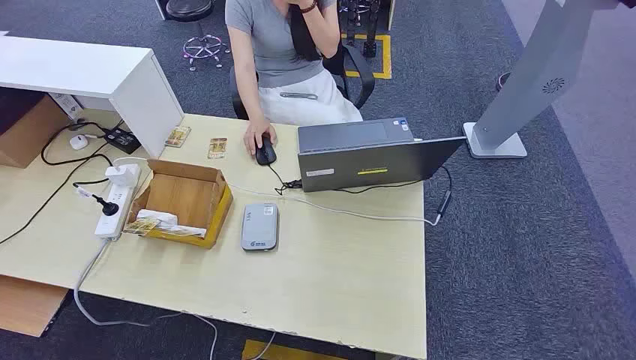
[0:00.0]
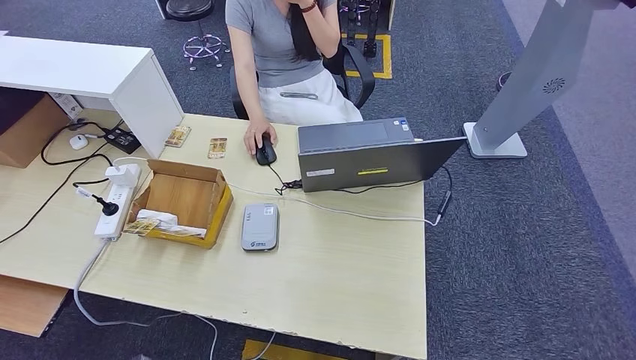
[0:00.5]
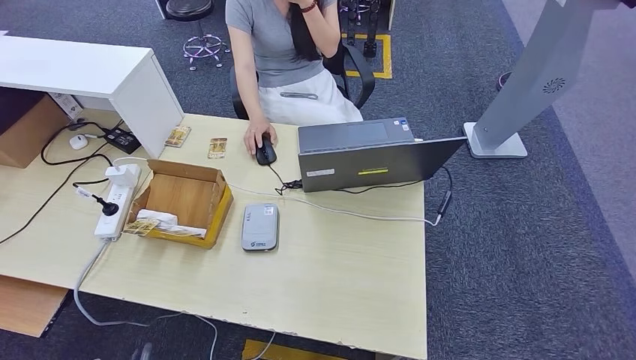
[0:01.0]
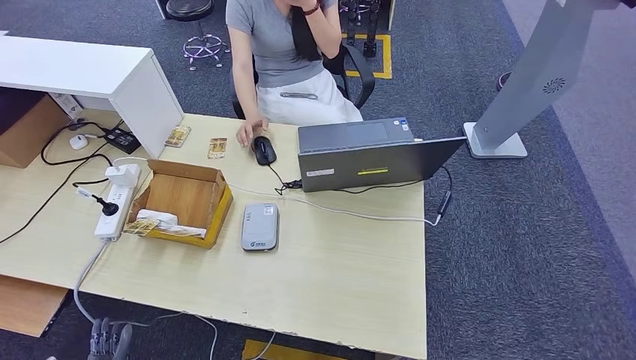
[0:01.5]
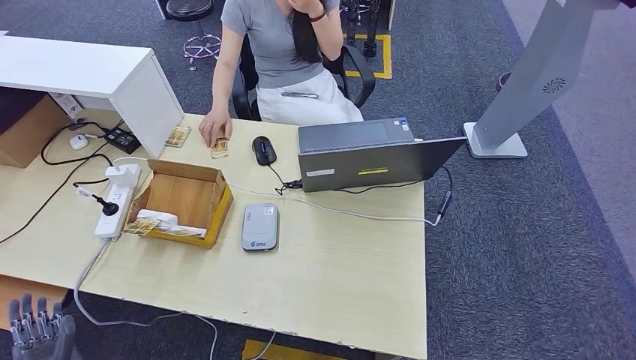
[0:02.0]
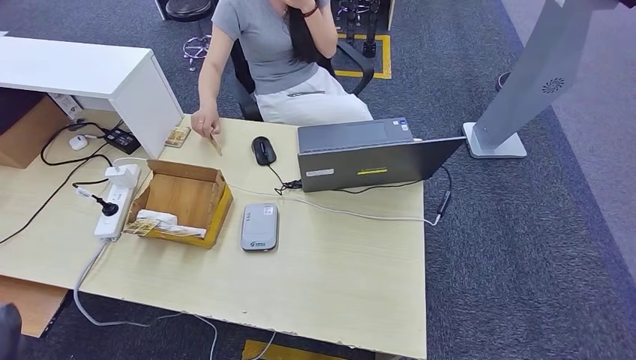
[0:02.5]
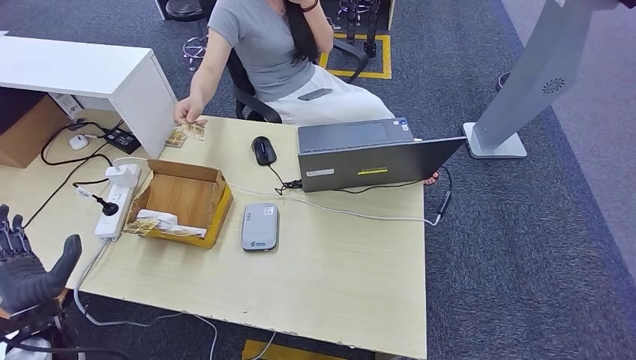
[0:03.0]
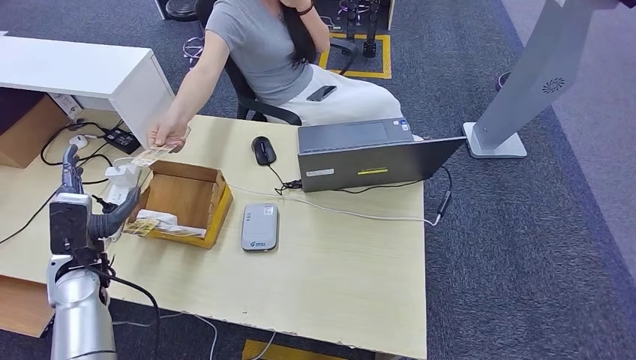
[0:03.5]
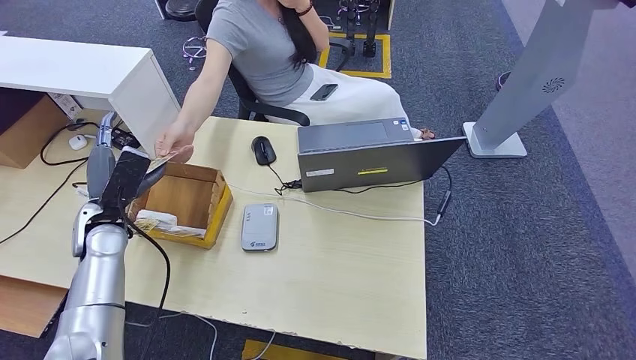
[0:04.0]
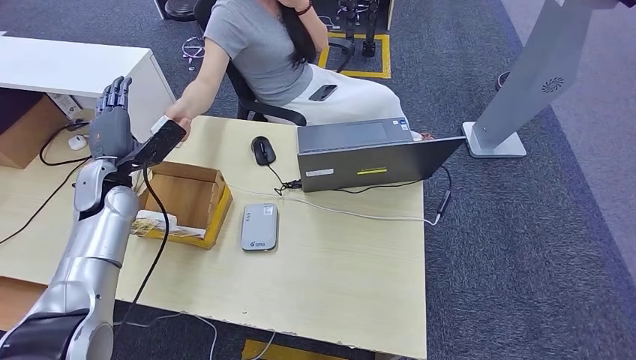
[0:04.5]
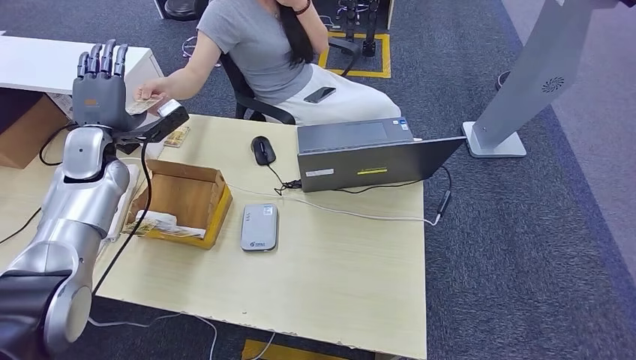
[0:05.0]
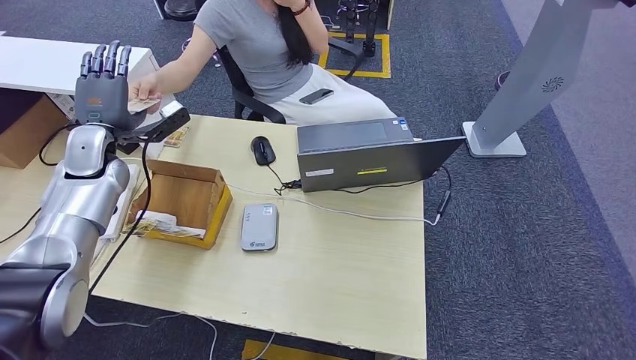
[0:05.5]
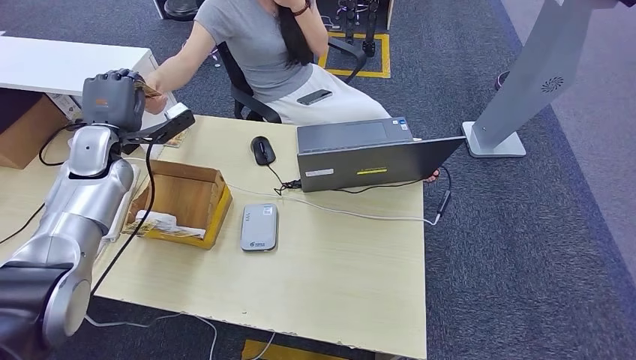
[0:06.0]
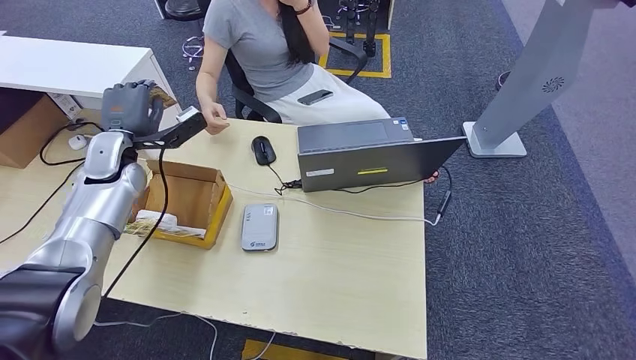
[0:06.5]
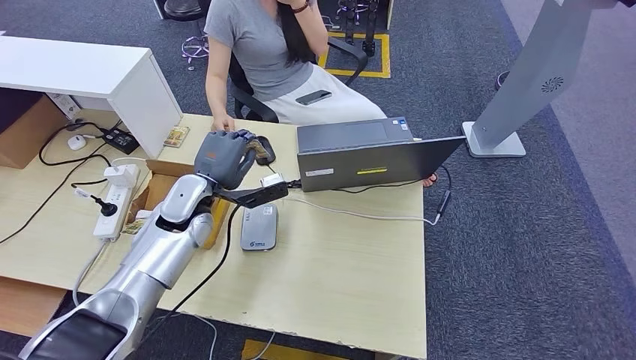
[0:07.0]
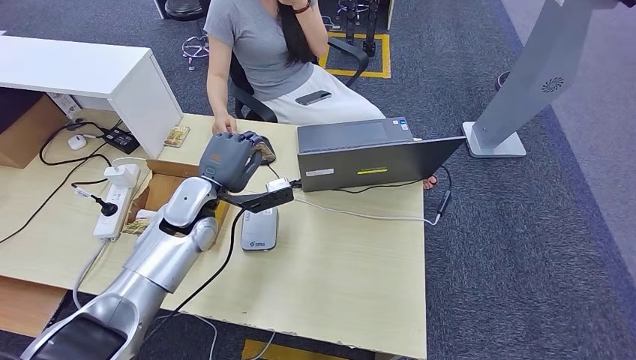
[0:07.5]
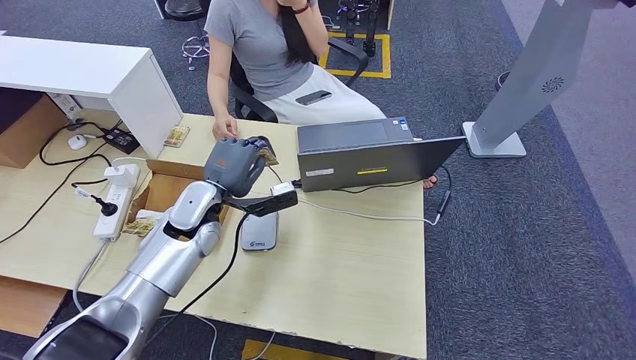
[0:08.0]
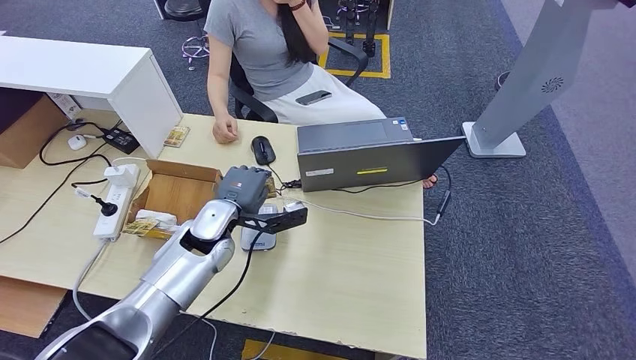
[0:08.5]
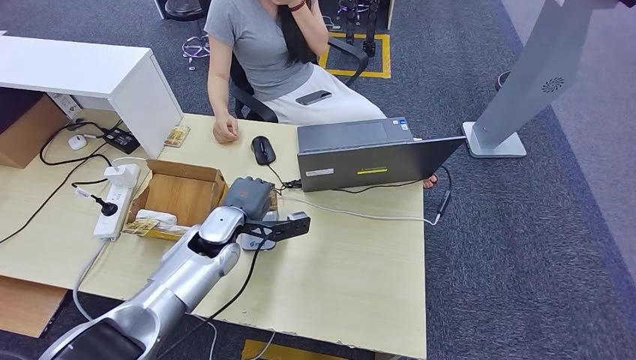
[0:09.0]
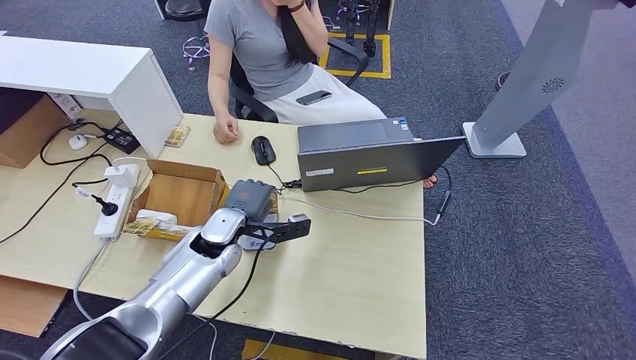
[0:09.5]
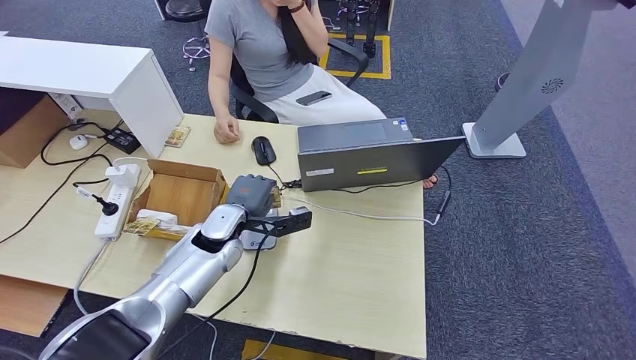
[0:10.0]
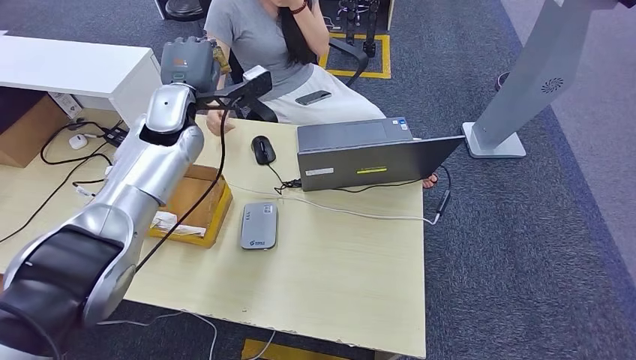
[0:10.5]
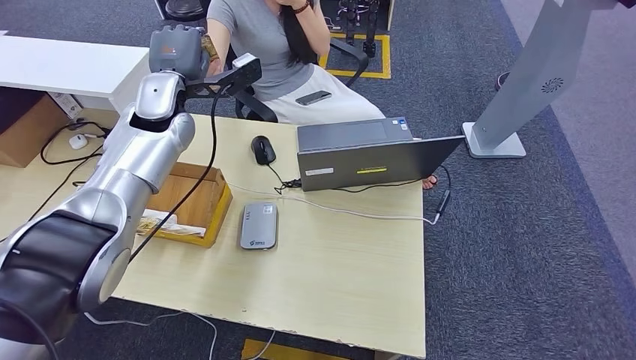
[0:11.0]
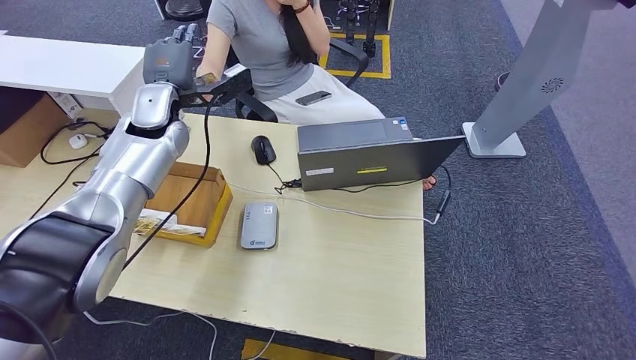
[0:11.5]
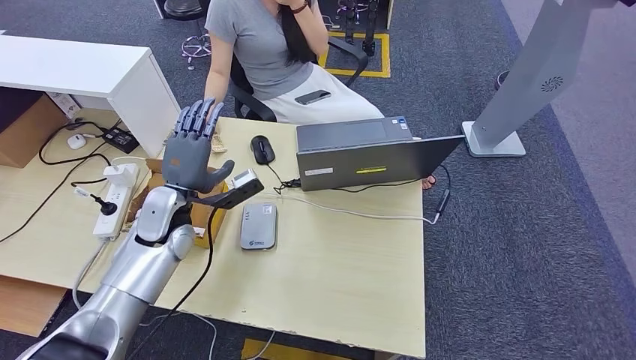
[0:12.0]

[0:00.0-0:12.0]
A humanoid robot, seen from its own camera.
Step, 0:00.0 to 0:06.5: Take the ID card from the person's hand.
Step, 0:07.0 to 0:09.0: Place the ID card on the card reader.
0:02.0 to 0:04.0: The left hand travels forward and upward by some 30 cm.
0:04.0 to 0:06.0: The left hand goes roughly 15 cm forward and upward.
0:06.0 to 0:08.0: The left hand heads to the right, covering approximately 20 cm.
0:08.0 to 0:10.0: The left hand shifts about 5 cm downward.
0:10.0 to 0:12.0: The left hand moves to the left, some 10 cm, and moves about 20 cm upward and comes back.

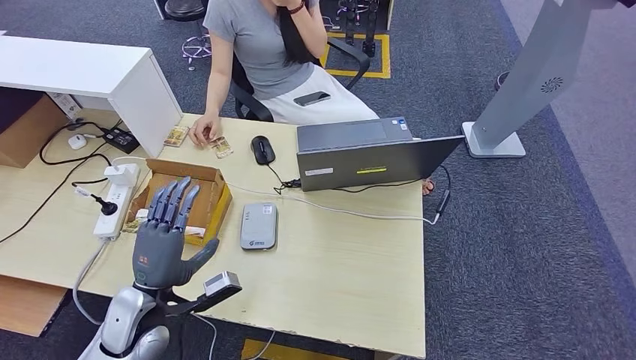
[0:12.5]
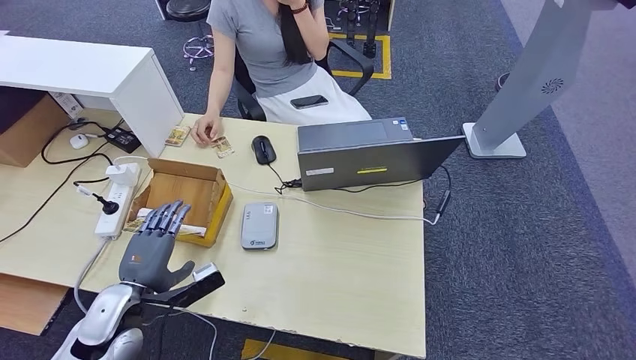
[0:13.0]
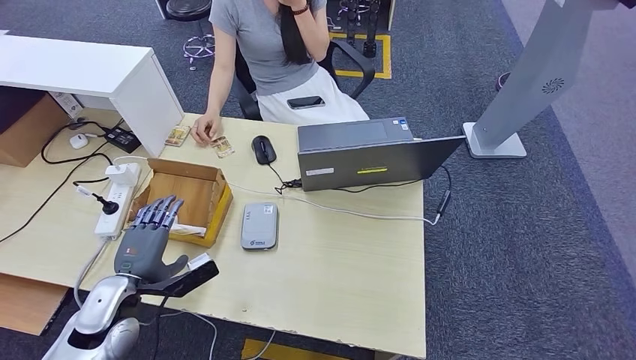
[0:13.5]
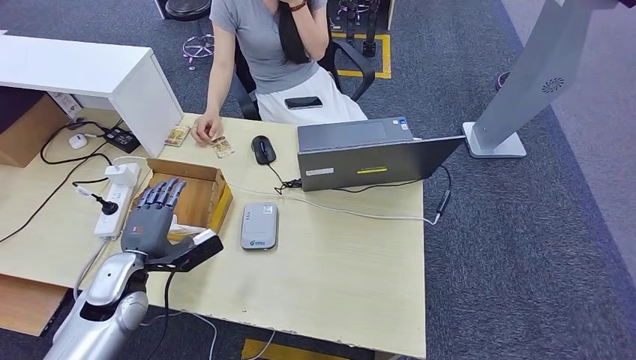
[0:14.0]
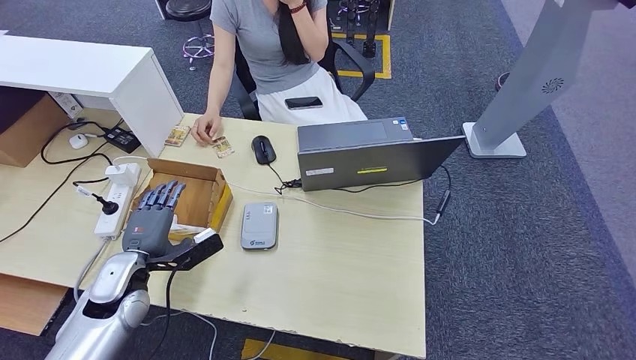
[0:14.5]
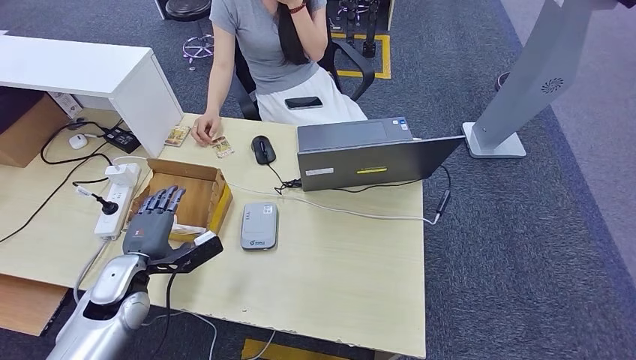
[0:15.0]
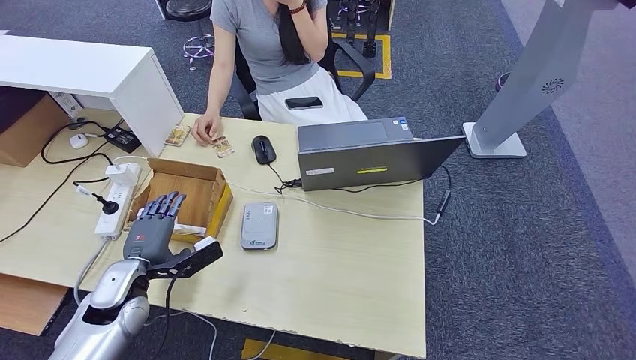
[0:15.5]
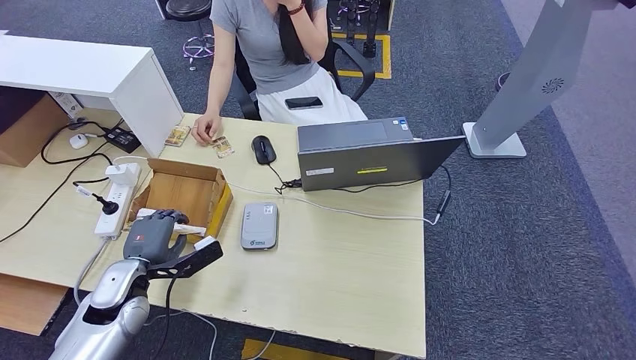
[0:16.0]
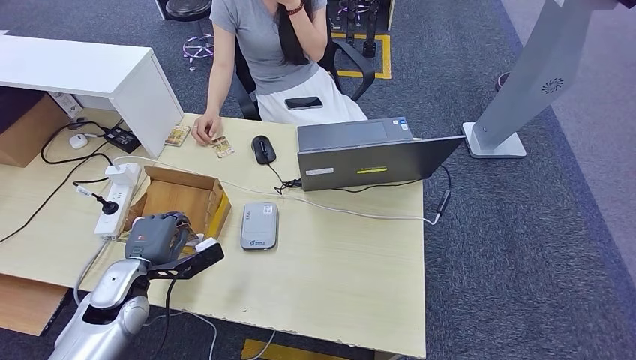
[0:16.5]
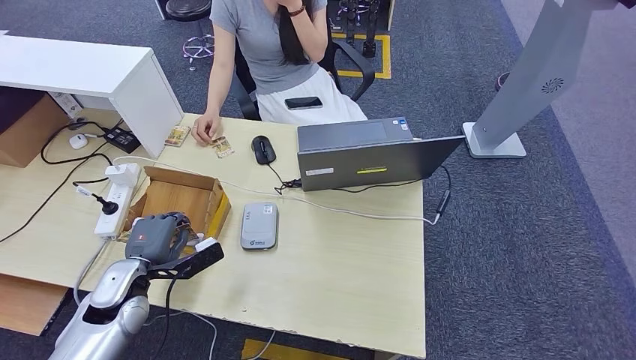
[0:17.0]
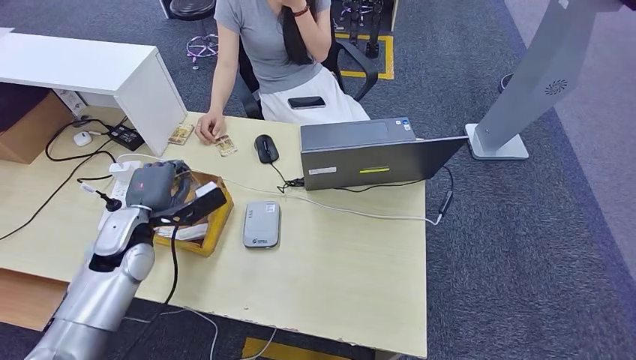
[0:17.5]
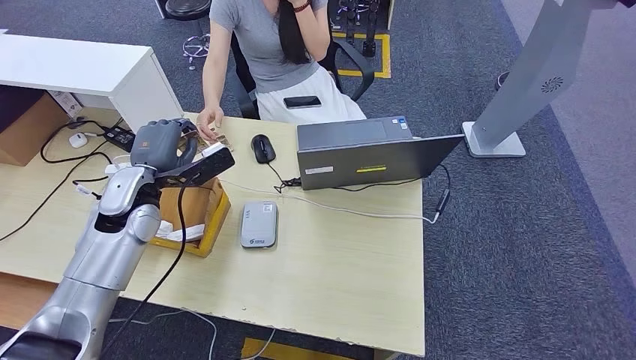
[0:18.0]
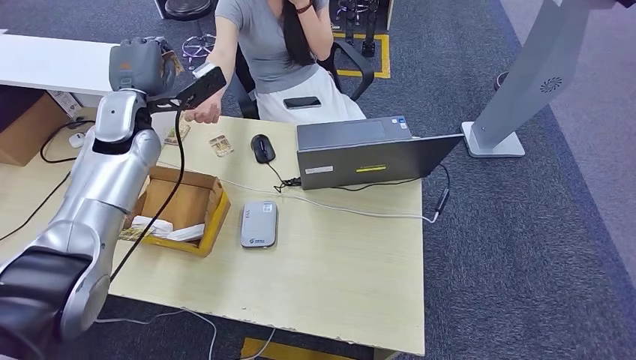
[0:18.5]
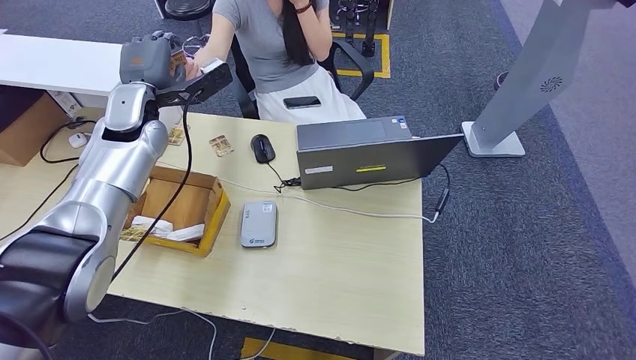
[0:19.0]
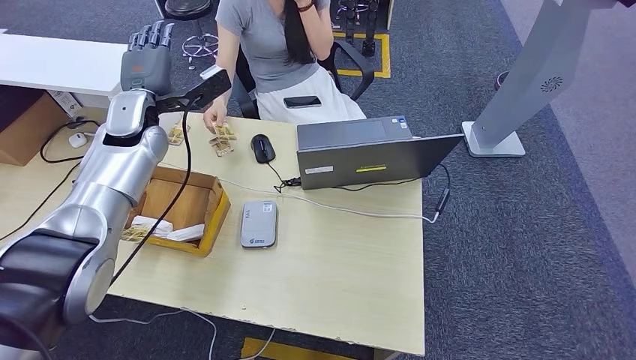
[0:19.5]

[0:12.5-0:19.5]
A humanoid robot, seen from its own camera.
Step, 0:13.0 to 0:17.0: Pick up the room key from the key card box.
Step, 0:17.5 to 0:19.5: Hand the room key to the person.
0:12.5 to 0:14.5: The left hand goes about 5 cm to the left.
0:14.5 to 0:16.0: The hands stay close to where they were, moving slightly.
0:16.0 to 0:17.5: The left hand is displaced forward and upward by some 10 cm.
